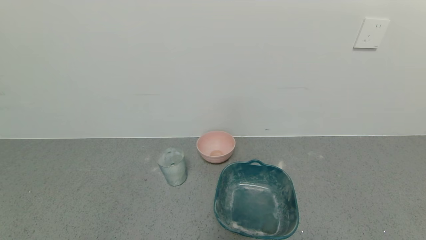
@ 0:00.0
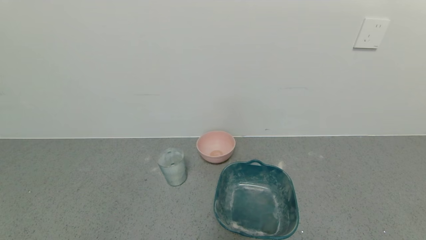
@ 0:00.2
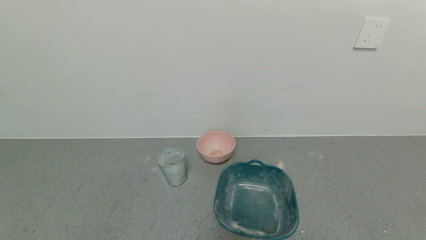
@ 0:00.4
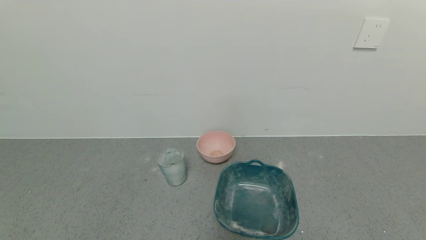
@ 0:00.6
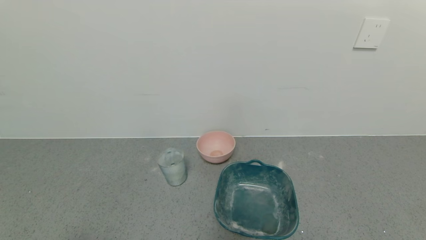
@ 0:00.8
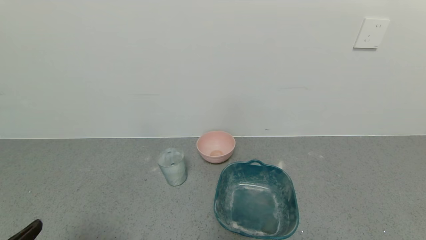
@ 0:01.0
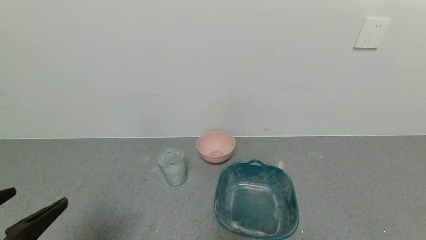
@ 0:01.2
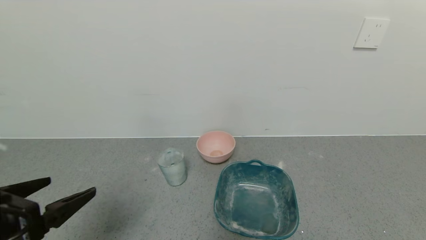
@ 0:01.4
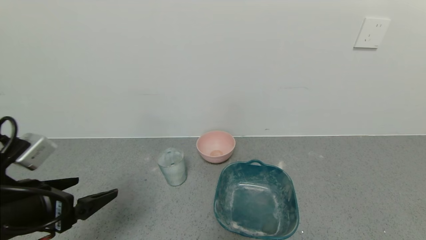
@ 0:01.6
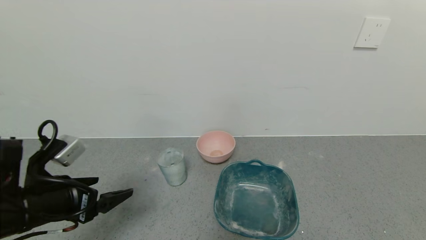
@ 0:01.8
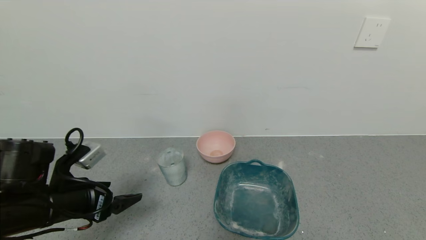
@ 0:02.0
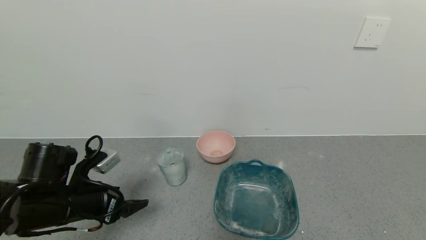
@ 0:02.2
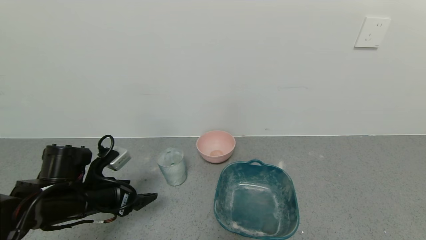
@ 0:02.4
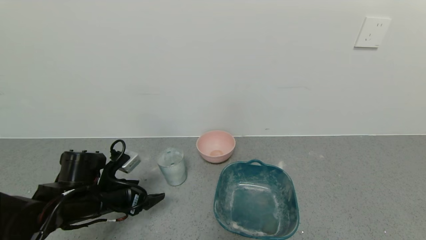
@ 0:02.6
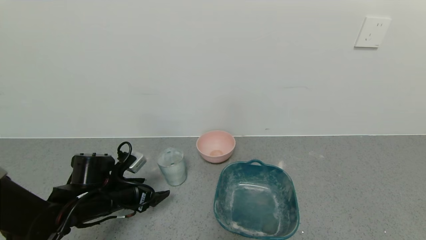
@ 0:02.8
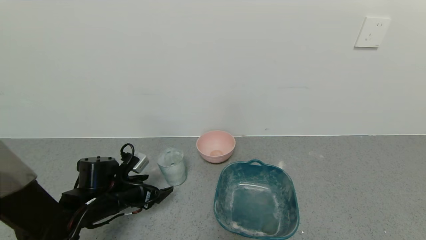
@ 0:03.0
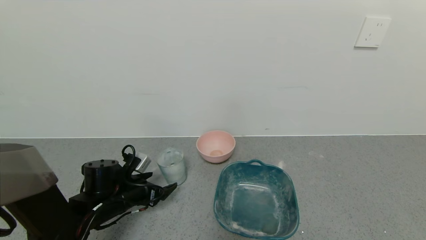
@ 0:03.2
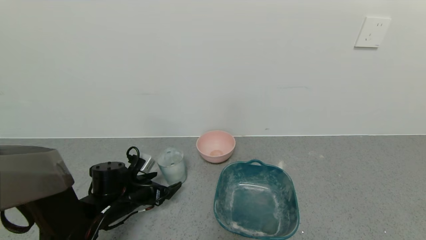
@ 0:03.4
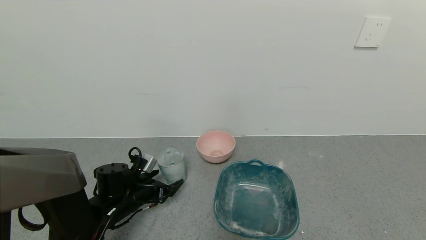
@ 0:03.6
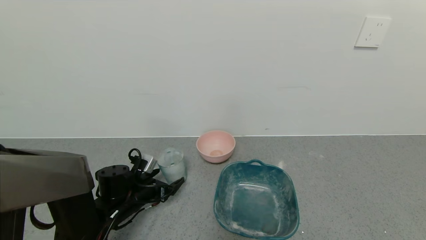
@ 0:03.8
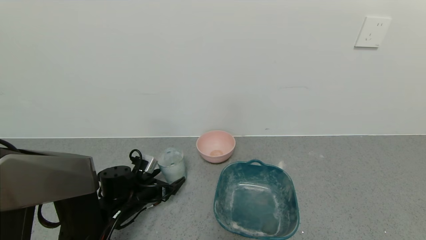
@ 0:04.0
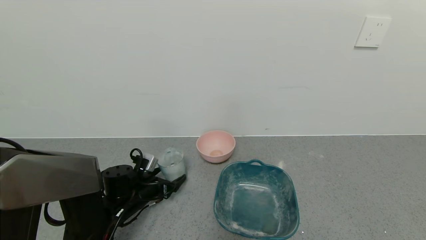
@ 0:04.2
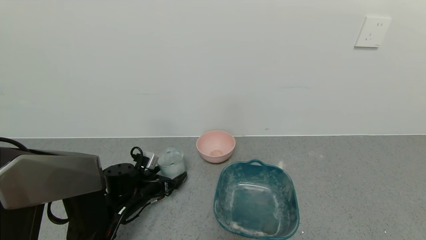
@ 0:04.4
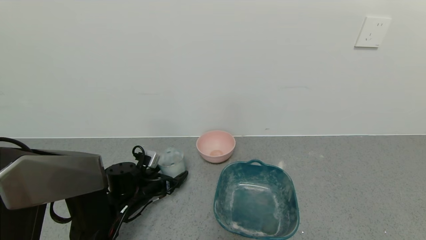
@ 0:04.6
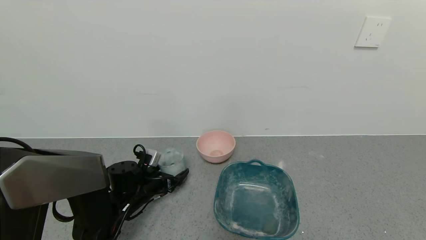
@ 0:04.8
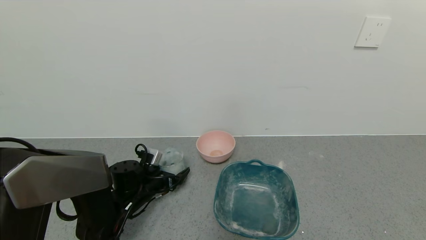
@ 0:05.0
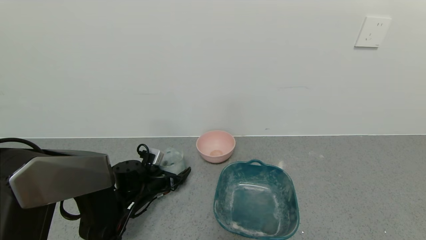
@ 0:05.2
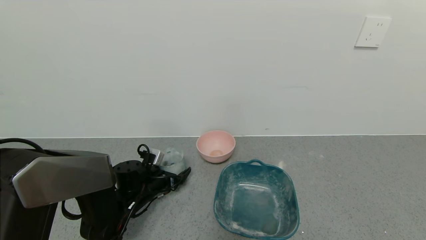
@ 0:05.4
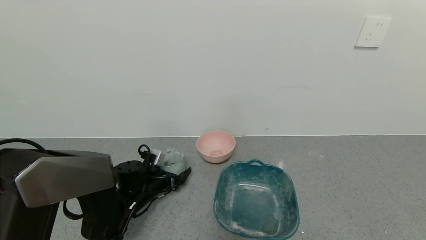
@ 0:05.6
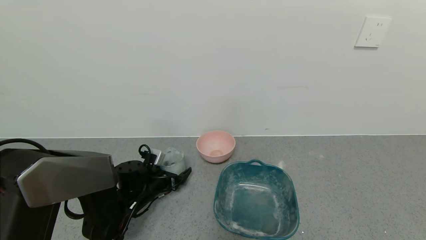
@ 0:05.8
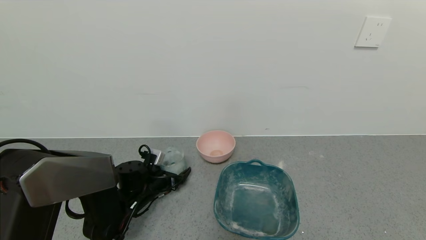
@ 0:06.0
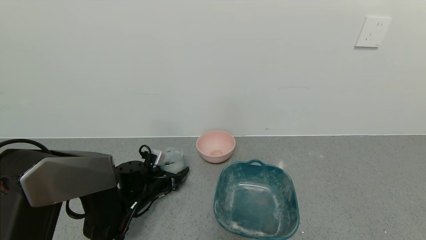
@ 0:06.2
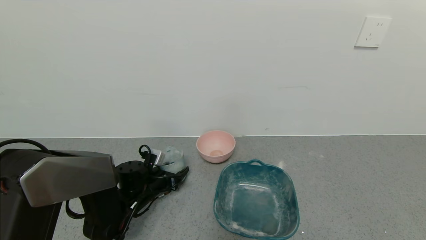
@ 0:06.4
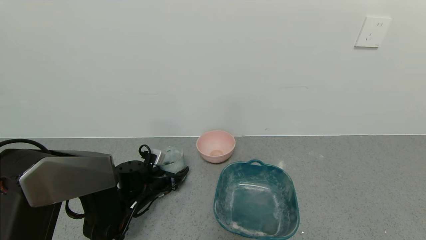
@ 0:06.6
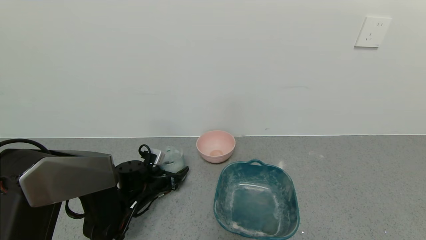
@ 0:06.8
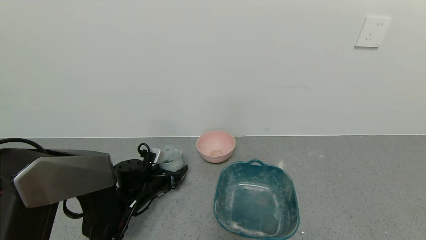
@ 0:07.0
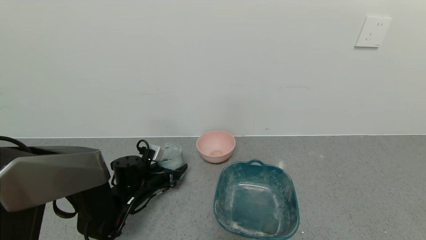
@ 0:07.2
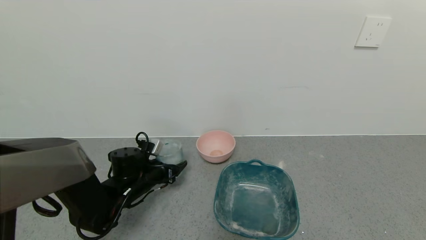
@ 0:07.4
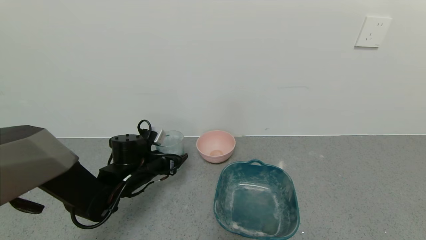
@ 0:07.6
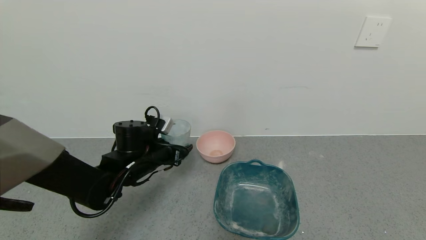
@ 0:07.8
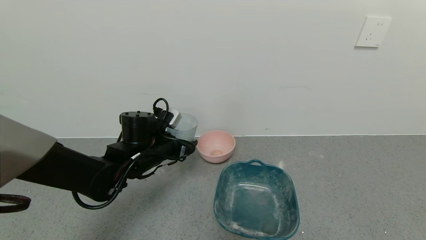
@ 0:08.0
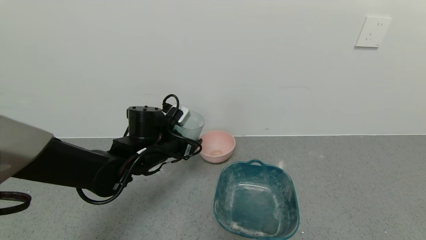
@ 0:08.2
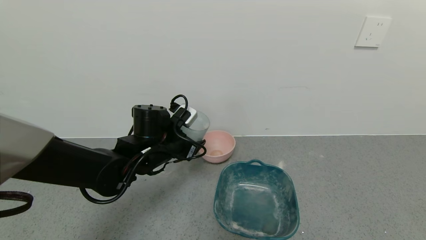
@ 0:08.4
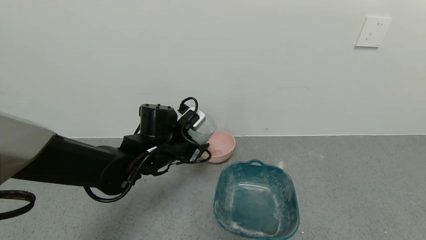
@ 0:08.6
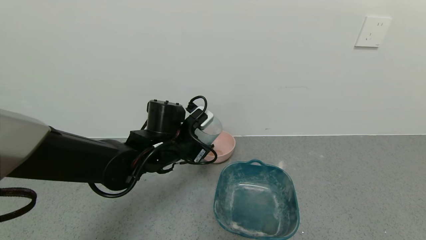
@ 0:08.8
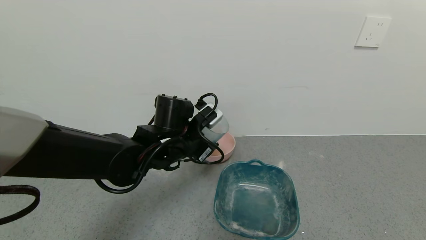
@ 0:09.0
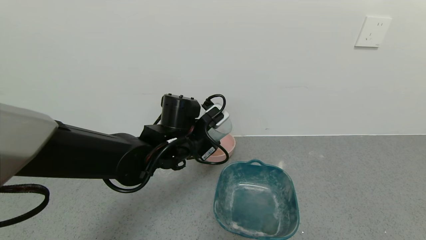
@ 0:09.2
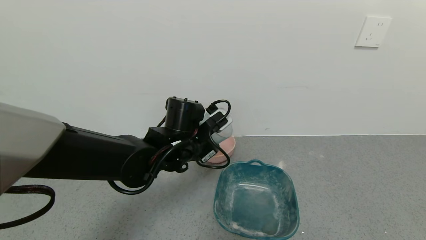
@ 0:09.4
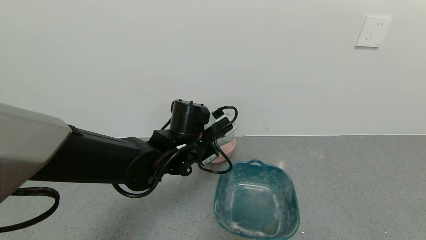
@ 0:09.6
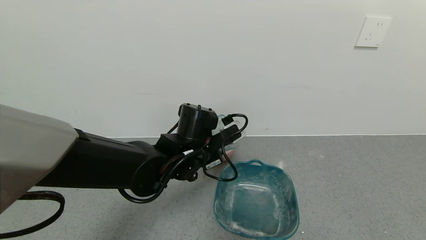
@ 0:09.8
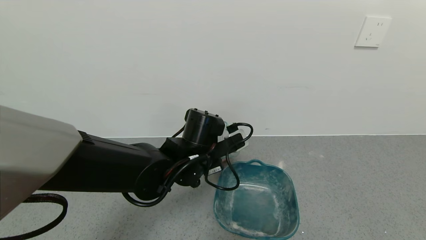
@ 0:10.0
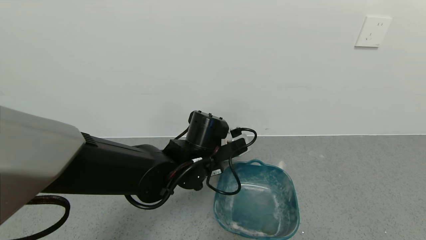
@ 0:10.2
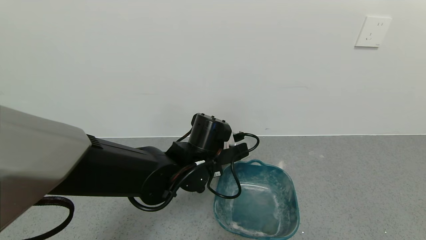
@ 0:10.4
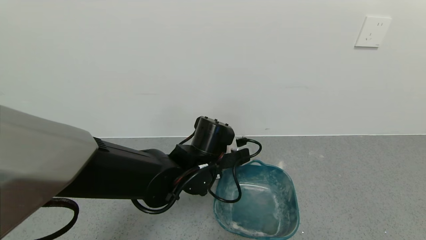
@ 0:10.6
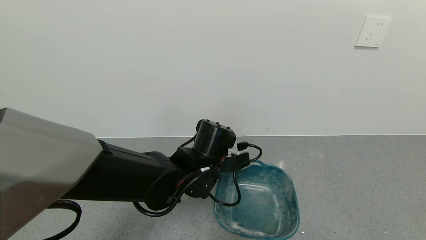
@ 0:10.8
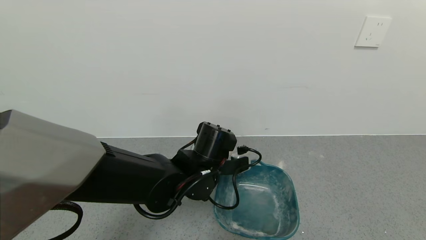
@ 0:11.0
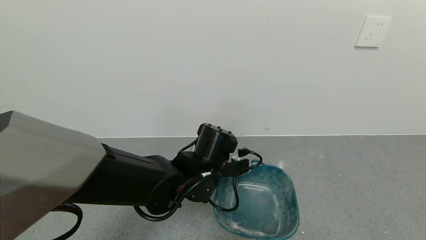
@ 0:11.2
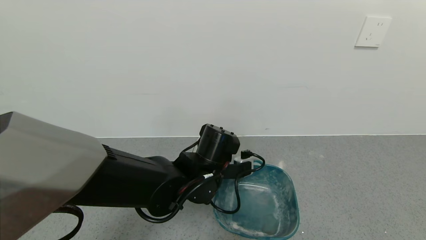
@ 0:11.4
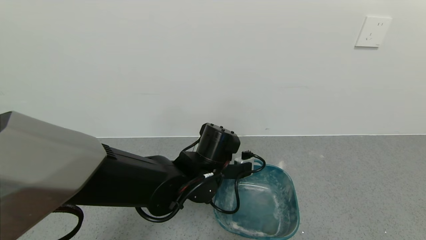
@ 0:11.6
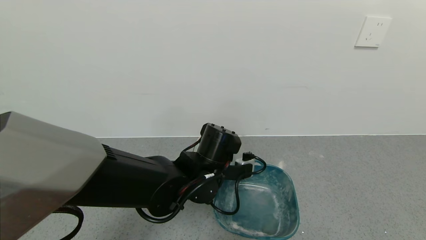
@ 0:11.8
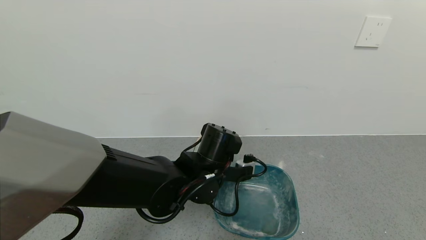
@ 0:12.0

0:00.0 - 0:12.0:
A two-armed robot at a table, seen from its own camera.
Task of the whole recording: use a gripper to pick up the cup and pour the powder into a bowl or tray.
Step, 0:00.0 - 0:06.0: Pick up blue cup filled with milk powder with left gripper.
0:00.0 - 0:01.6: The left gripper shifts some 20 cm forward and upward.
0:01.6 - 0:03.0: The left gripper travels downward and forward by about 20 cm.
0:03.0 - 0:04.4: The left gripper changes place by about 5 cm.
0:04.4 - 0:06.0: The grippers move only a little.
0:06.0 - 0:07.6: The left gripper travels upward by approximately 10 cm, and closes its fingers.
0:07.6 - 0:09.0: The left gripper shifts roughly 15 cm to the right and upward.
0:09.0 - 0:10.4: The left gripper moves some 5 cm.

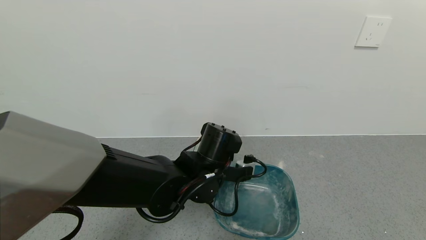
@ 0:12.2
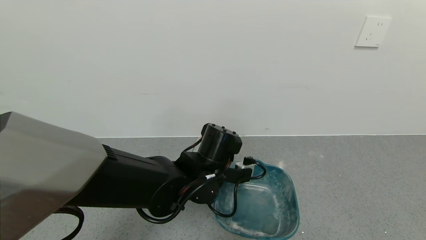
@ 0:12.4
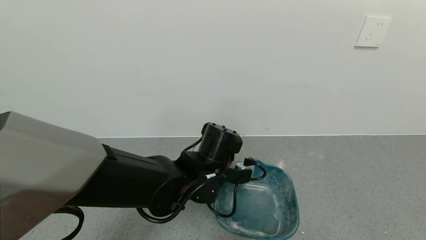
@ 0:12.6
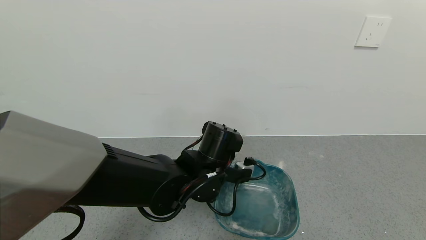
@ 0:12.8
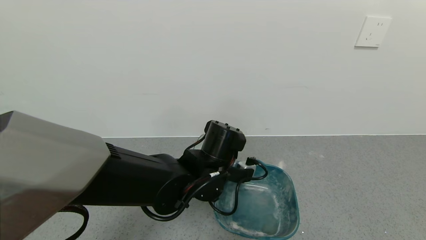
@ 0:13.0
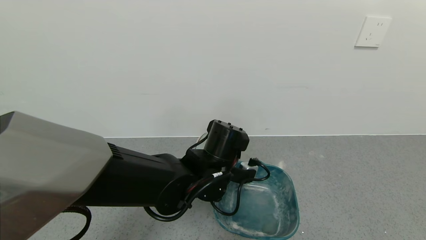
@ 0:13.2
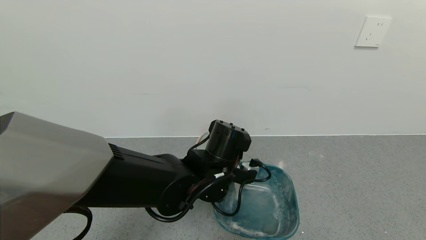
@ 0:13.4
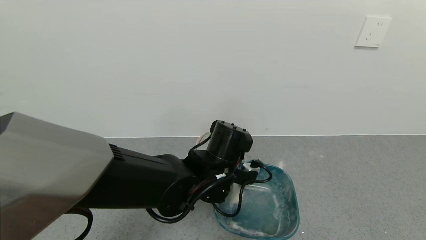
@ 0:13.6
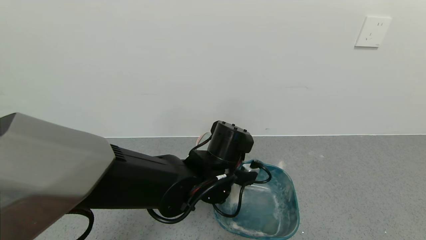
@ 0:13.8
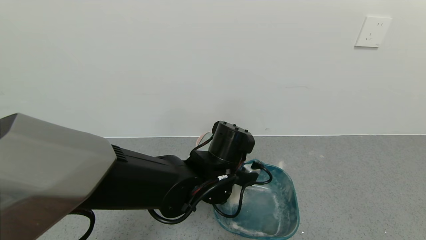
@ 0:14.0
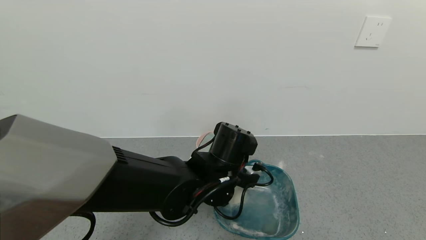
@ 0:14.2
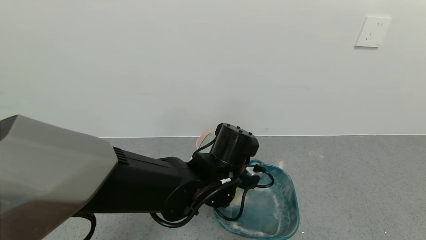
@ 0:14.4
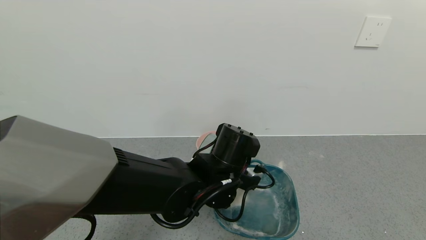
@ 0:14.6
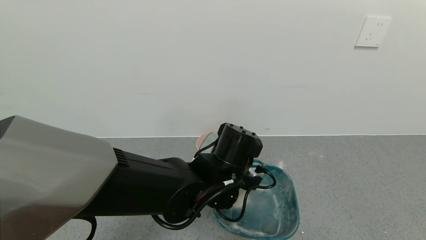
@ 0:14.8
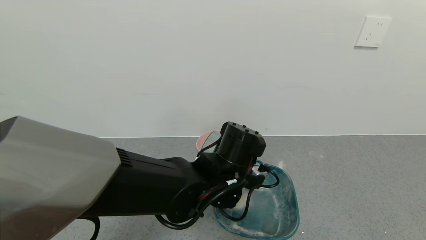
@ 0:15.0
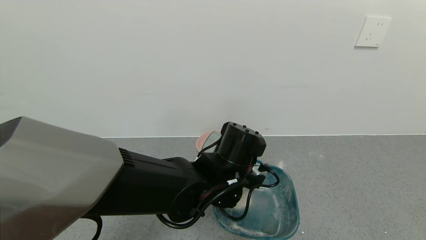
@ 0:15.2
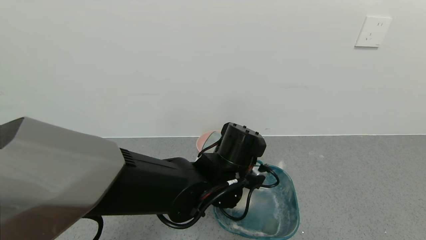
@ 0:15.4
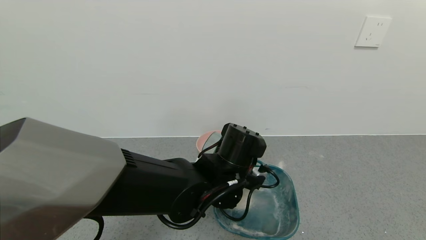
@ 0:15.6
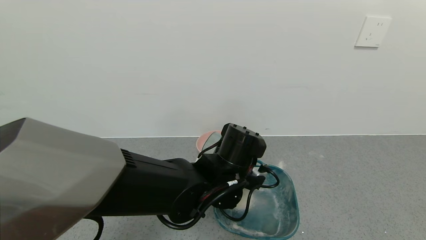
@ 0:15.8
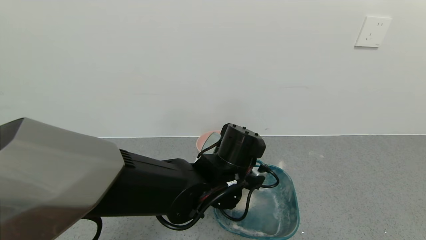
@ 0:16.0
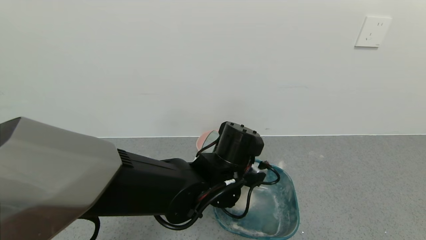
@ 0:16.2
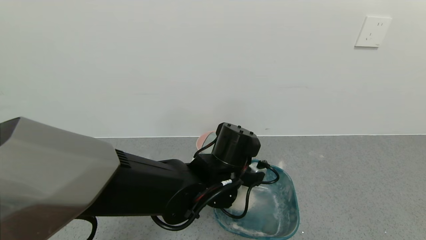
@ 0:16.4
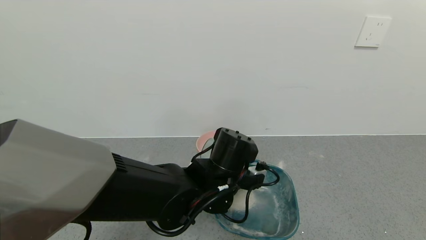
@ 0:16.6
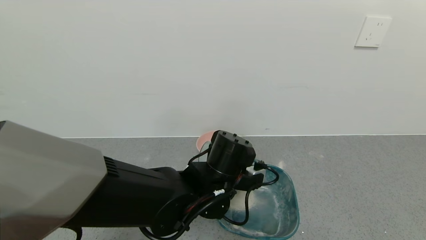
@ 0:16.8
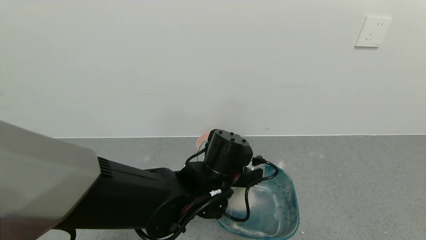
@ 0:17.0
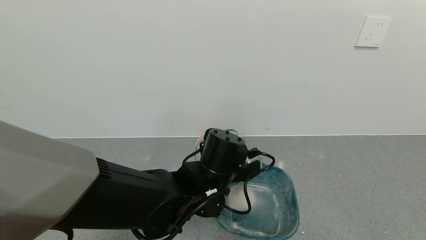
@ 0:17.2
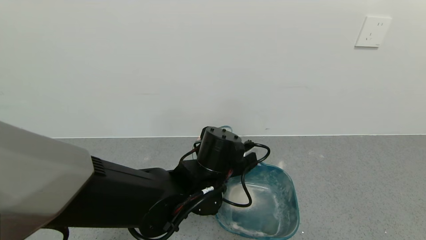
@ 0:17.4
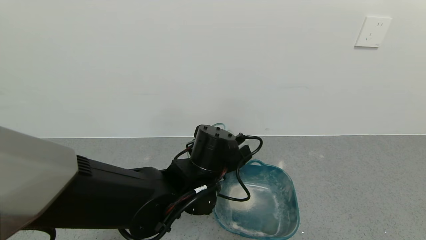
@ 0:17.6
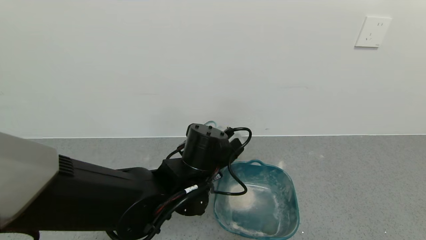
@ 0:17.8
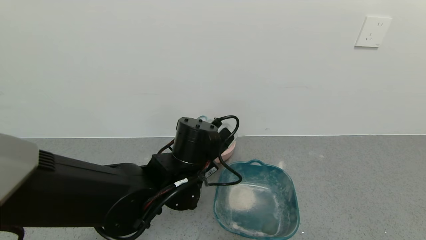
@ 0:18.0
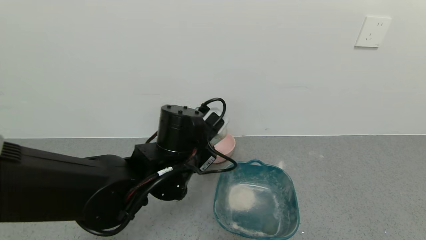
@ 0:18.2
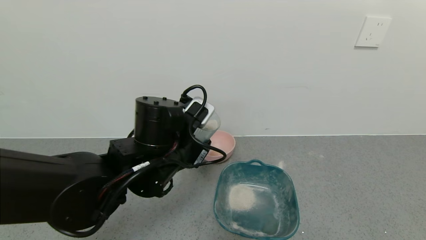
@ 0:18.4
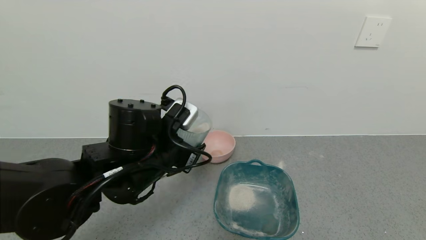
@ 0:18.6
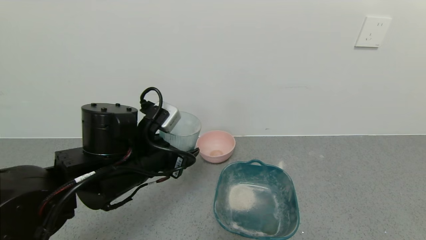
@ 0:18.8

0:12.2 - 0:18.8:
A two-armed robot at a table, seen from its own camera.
Task of the whole recording: use a gripper to pick up the cup and pour the powder into a bowl or tray.
0:12.2 - 0:15.4: The grippers stay close to where they were, moving slightly.
0:17.2 - 0:18.8: The left gripper travels to the left and upward by roughly 15 cm.
